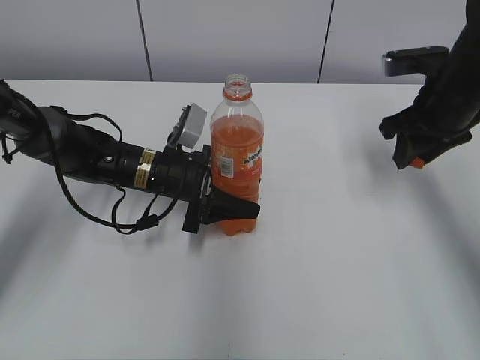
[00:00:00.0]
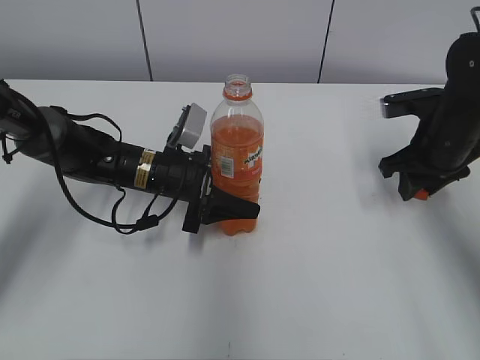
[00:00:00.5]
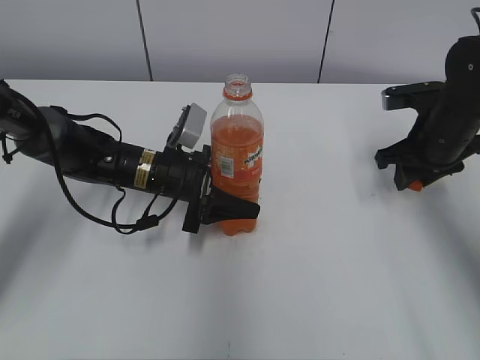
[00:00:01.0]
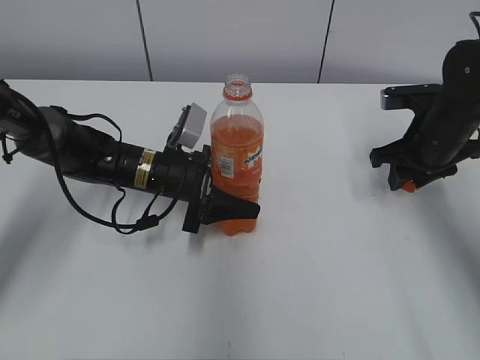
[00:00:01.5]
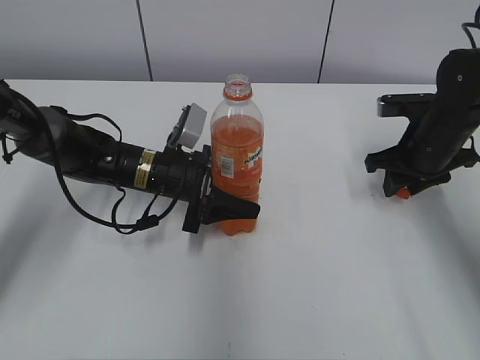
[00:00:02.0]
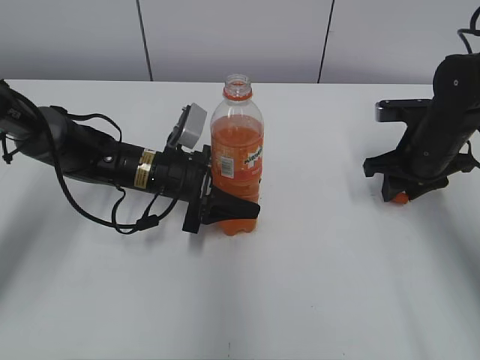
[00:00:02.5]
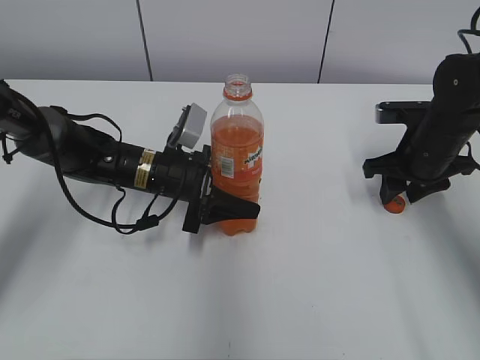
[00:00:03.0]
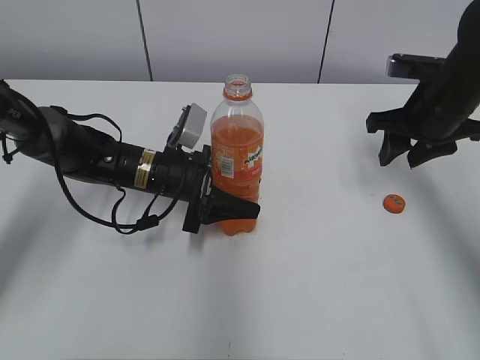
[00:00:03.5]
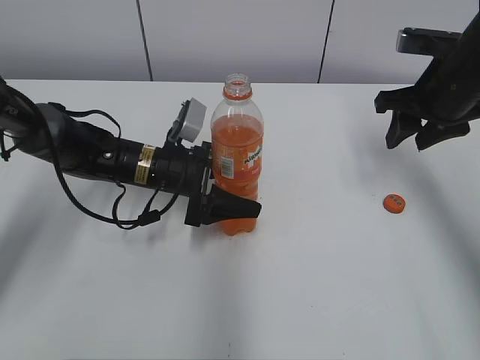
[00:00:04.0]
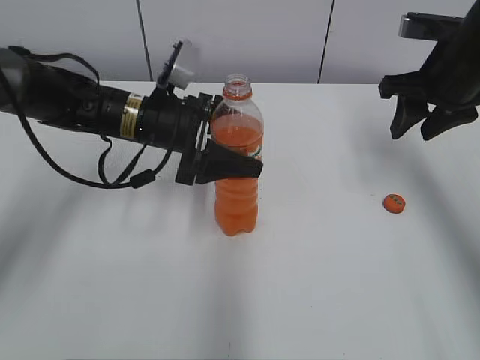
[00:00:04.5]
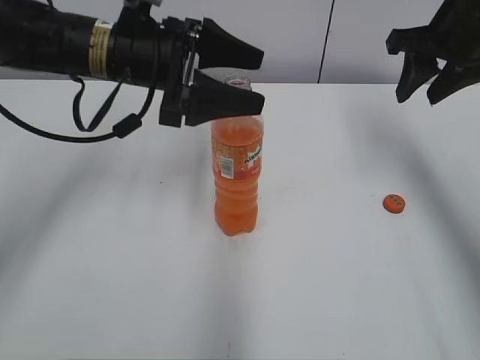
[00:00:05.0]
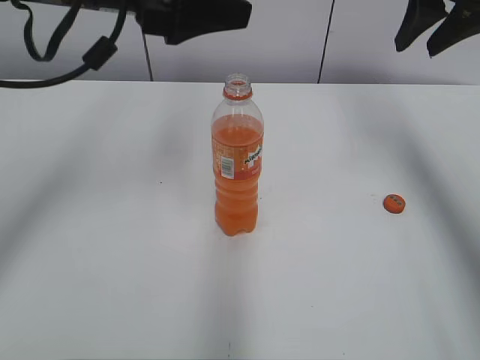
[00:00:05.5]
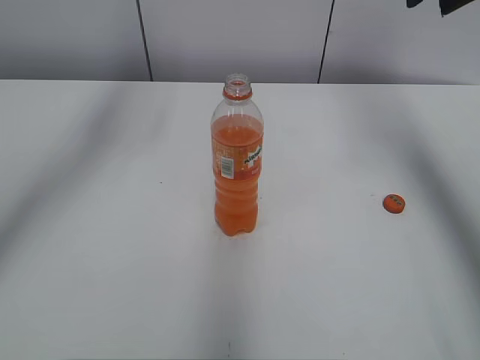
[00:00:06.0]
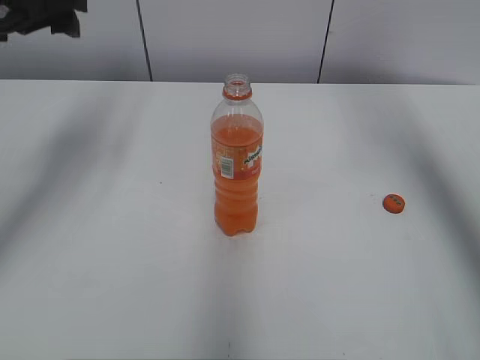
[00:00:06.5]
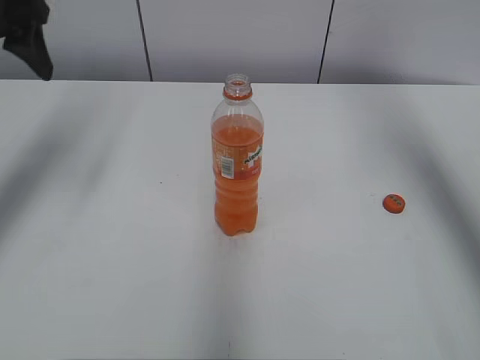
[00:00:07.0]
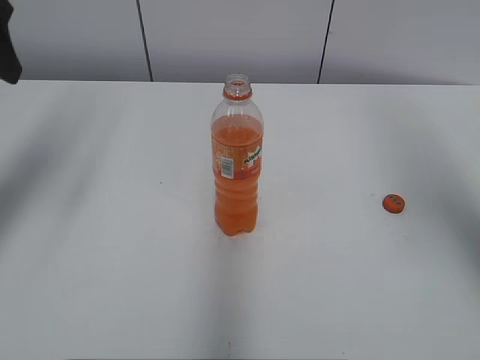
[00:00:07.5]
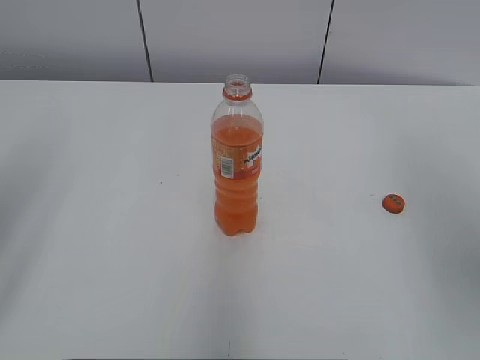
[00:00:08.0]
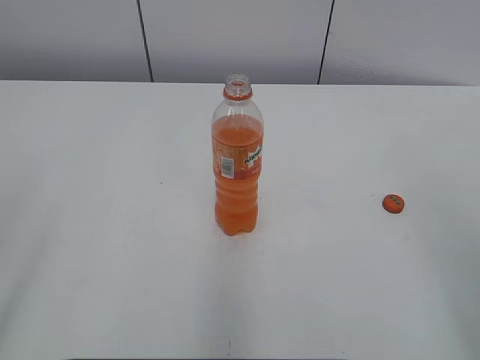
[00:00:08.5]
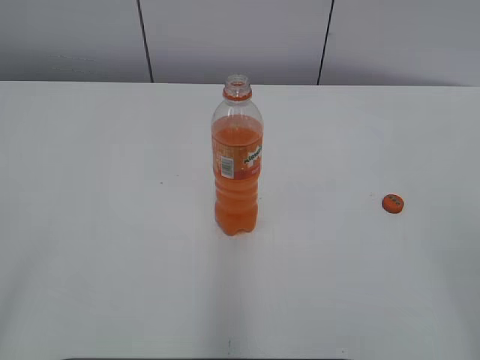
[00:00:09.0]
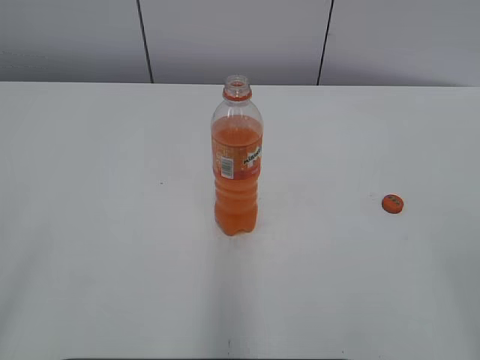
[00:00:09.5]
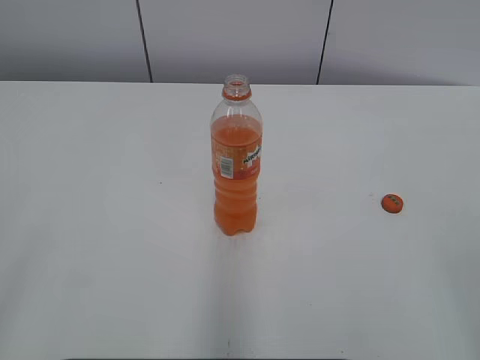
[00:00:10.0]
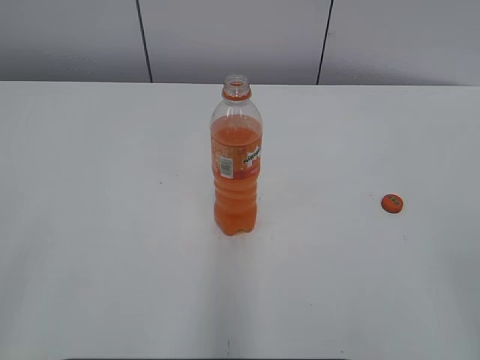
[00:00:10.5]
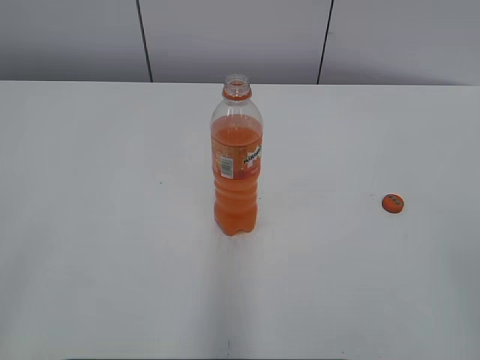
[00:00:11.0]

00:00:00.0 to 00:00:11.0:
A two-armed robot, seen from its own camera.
Step, 00:00:00.0 to 00:00:02.5: Place the bottle cap on the right.
Step, 00:00:03.0 to 00:00:04.5: Place the Mirinda with the left hand.
00:00:00.0 to 00:00:02.0: The right gripper travels downward by some 5 cm.
00:00:02.0 to 00:00:03.5: The grippers stay close to where they were, moving slightly.
00:00:03.5 to 00:00:05.5: The left gripper goes approximately 25 cm upward, and opens up. The right gripper travels upward by about 15 cm.
00:00:05.5 to 00:00:07.5: The right gripper travels backward by roughly 15 cm. The left gripper is displaced to the left by roughly 15 cm.
00:00:07.5 to 00:00:09.0: The two grippers go some 25 cm backward.

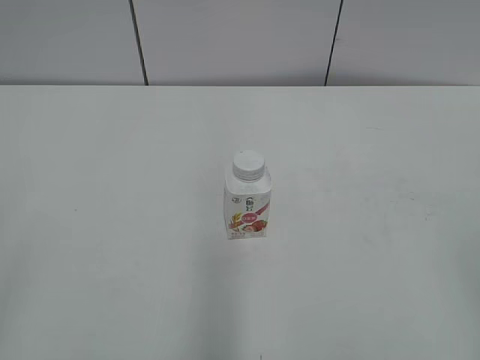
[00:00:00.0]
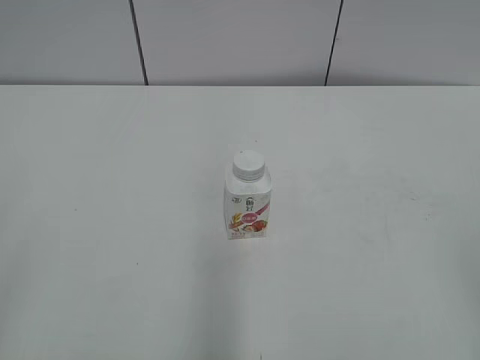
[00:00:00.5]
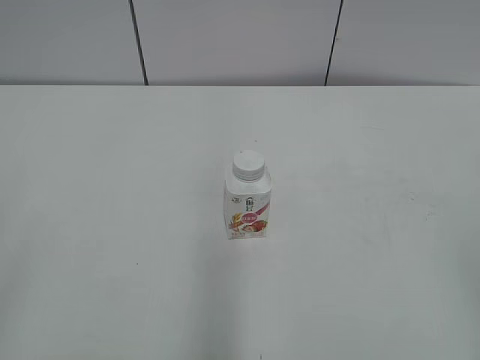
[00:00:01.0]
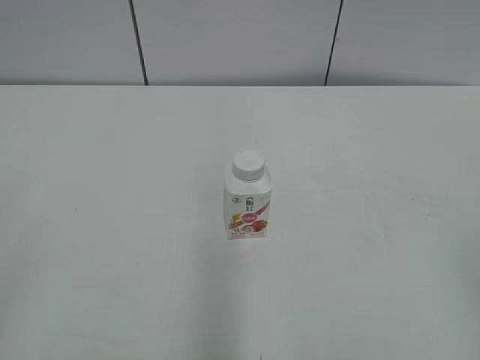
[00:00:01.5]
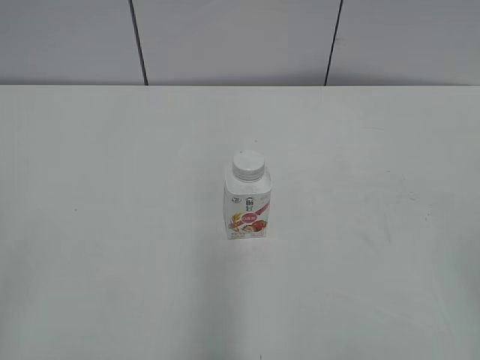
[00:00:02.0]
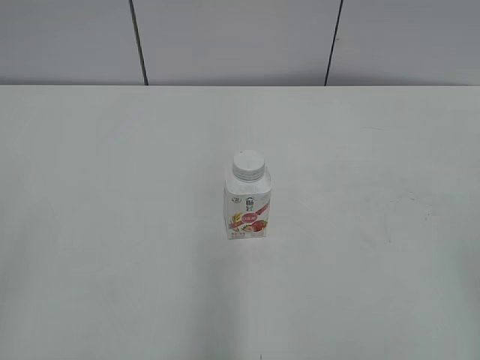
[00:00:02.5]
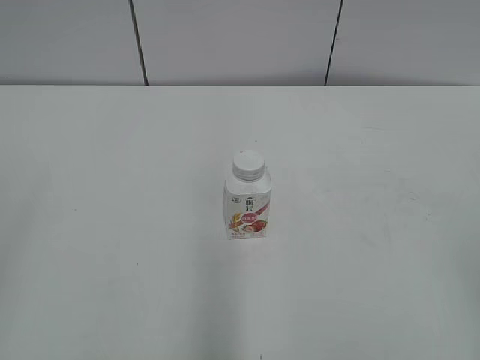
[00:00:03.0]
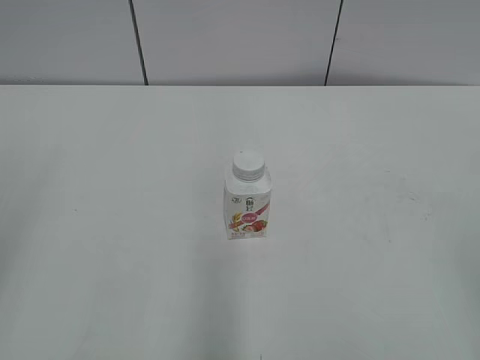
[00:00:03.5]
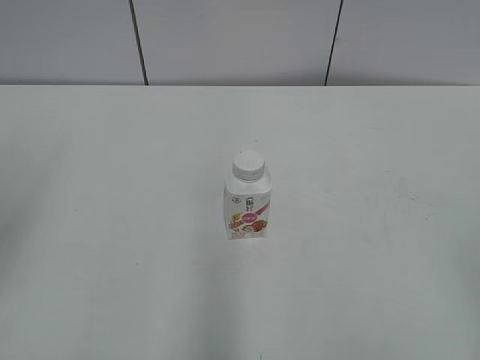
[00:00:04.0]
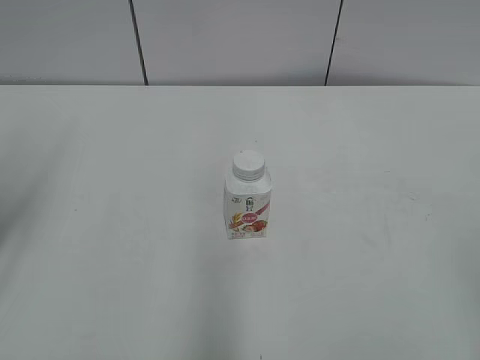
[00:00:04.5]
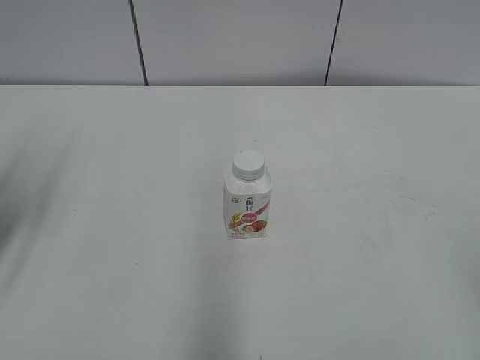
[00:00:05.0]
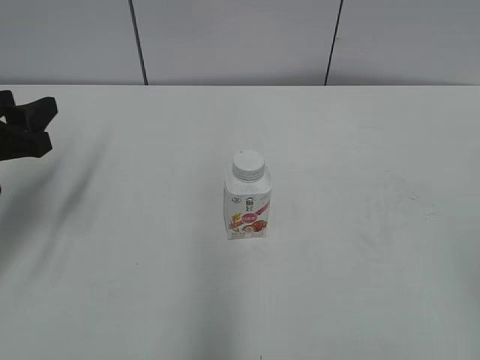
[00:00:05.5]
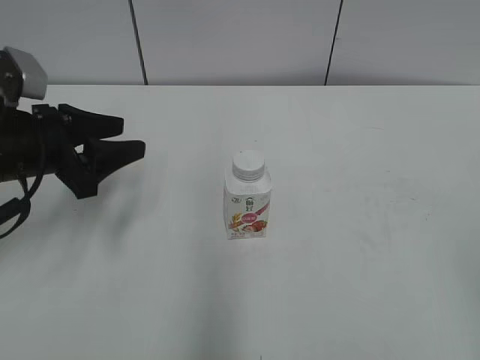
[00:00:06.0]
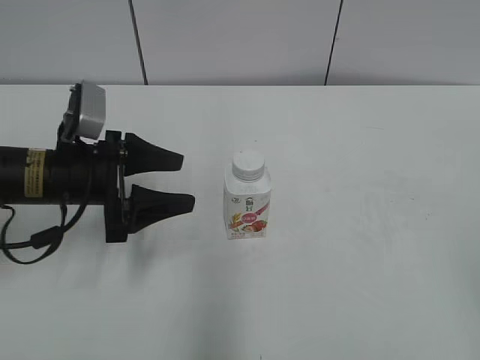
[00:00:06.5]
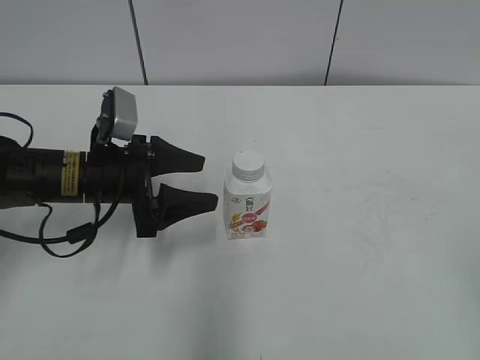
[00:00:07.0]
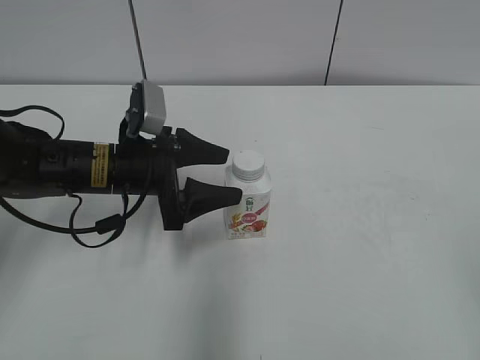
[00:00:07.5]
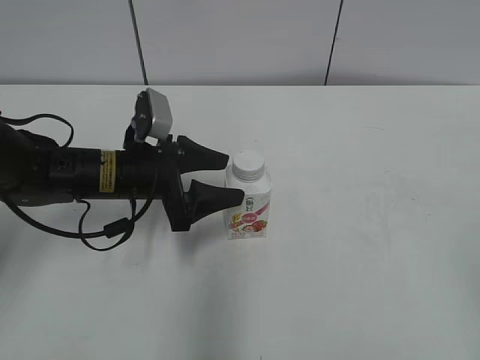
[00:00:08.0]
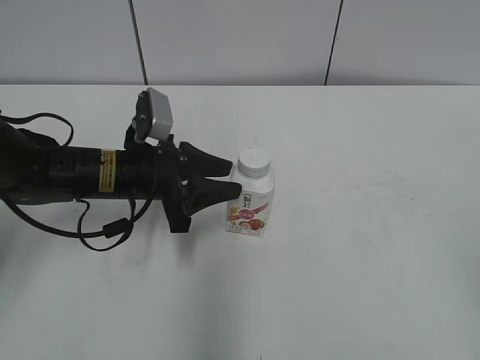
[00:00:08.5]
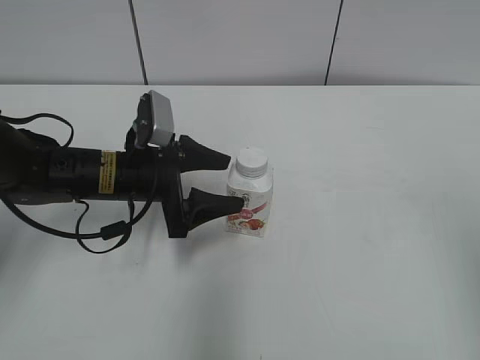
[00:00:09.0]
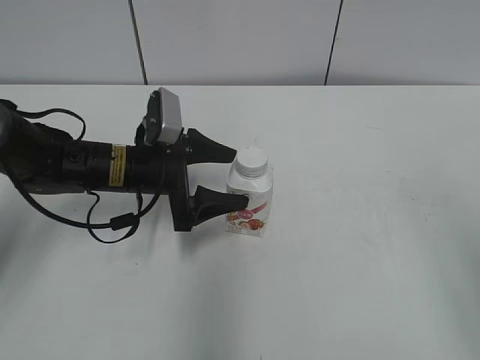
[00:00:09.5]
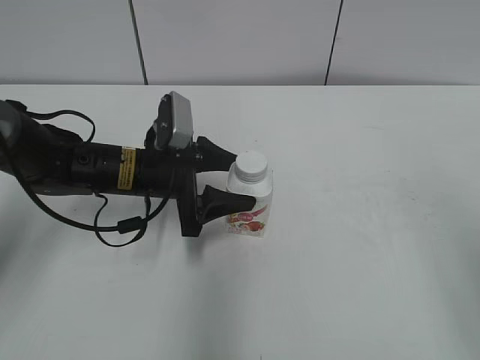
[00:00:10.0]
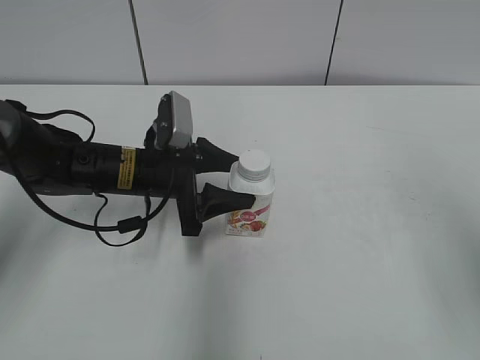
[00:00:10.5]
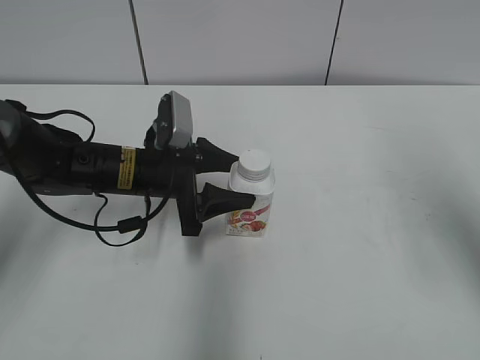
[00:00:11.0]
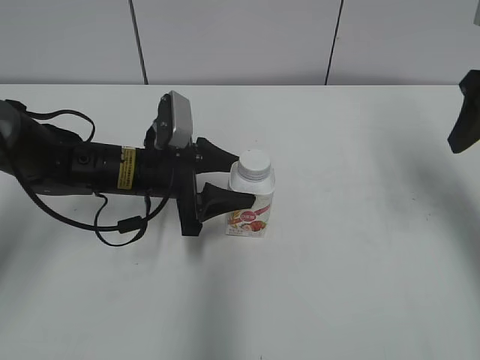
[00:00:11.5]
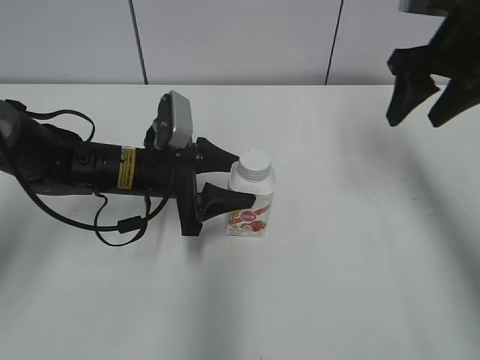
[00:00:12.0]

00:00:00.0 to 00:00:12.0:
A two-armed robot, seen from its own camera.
Step, 00:00:00.0 to 00:00:10.0: Grab the Yili Changqing with the left hand.
00:00:04.0 to 00:00:06.0: The left gripper travels forward, downward and to the right by approximately 20 cm.
00:00:06.0 to 00:00:08.0: The left gripper shifts roughly 10 cm to the right and downward, and opens up.
00:00:08.0 to 00:00:10.0: The left gripper closes, then opens again. The right gripper shifts roughly 10 cm forward.
00:00:10.0 to 00:00:12.0: The right gripper moves forward, roughly 30 cm.

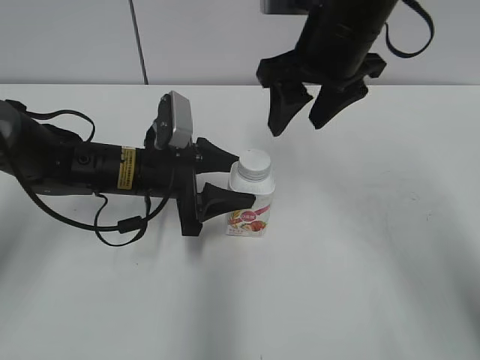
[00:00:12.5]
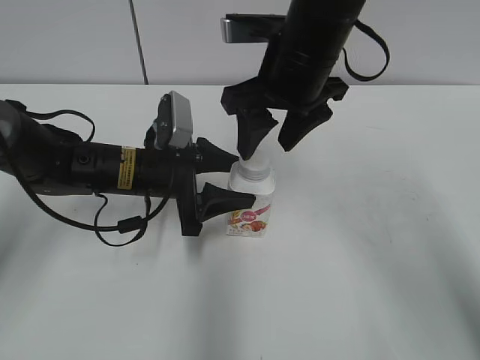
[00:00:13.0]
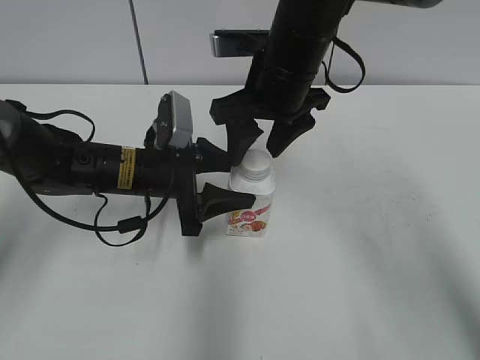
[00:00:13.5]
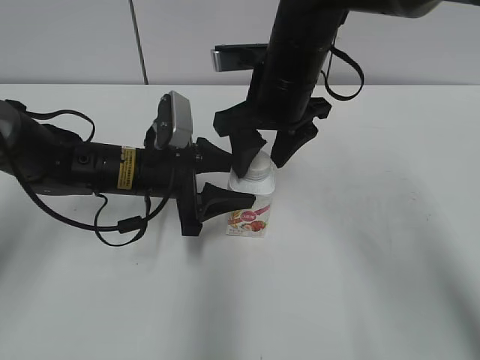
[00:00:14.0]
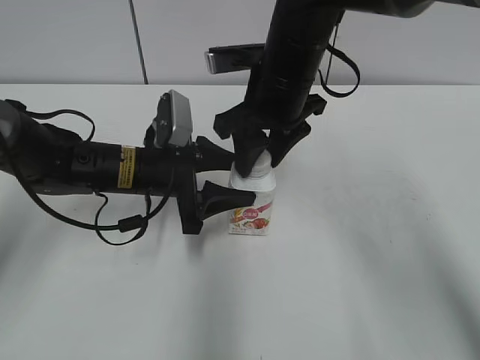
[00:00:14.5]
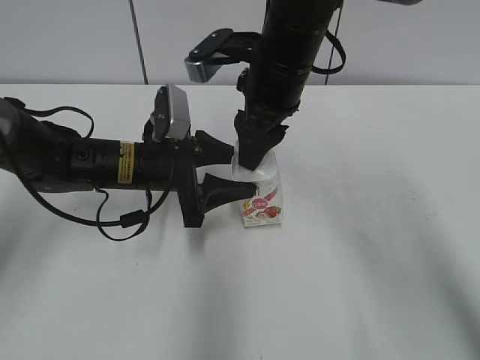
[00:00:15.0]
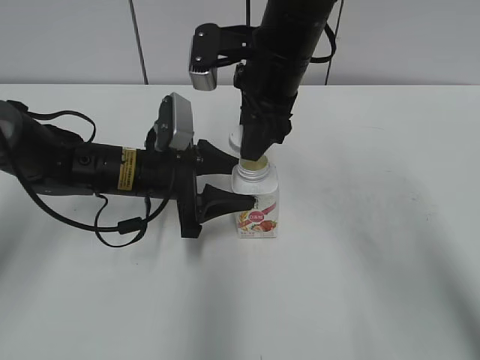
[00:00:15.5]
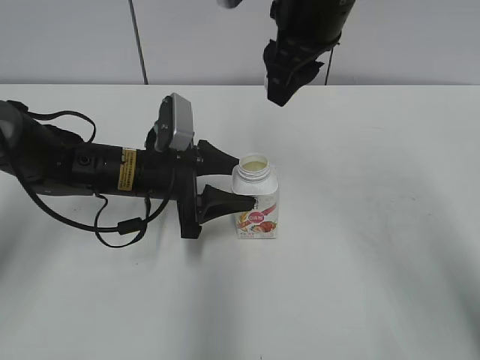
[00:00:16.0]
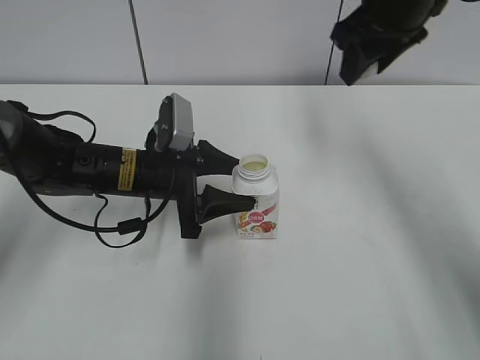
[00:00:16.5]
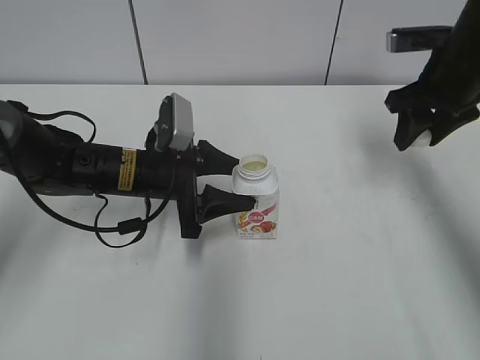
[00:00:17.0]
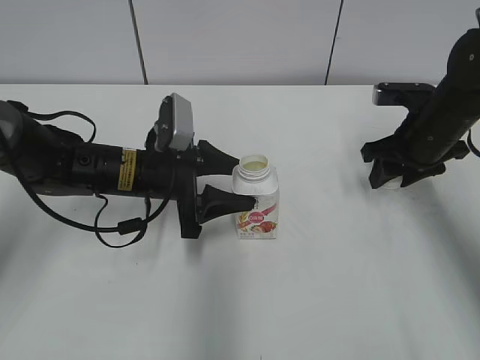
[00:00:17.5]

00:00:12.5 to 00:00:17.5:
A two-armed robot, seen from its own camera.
Step, 00:00:12.5 to 00:00:15.0: Twist the bottle cap with the right hand.
00:00:12.5 to 00:00:15.0: The right gripper travels to the left by about 5 cm, and closes its fingers.
00:00:15.0 to 00:00:17.5: The right gripper goes roughly 20 cm to the right and downward.
